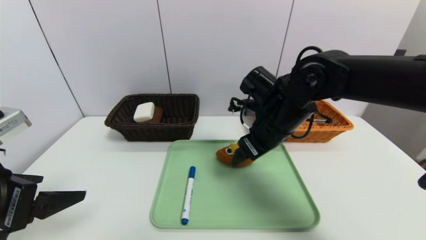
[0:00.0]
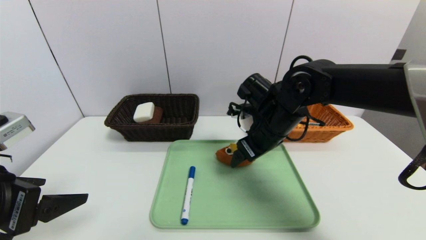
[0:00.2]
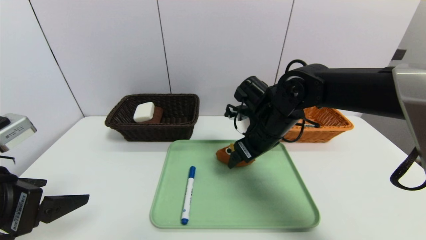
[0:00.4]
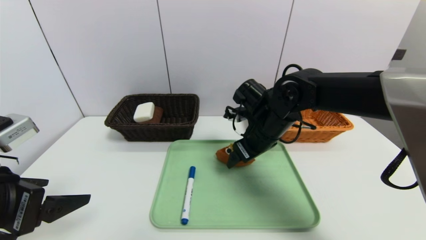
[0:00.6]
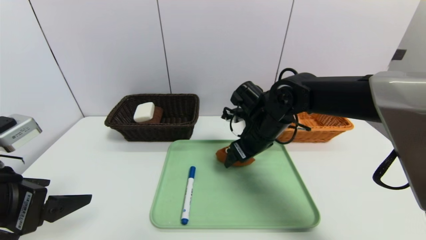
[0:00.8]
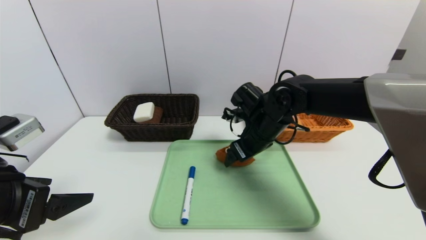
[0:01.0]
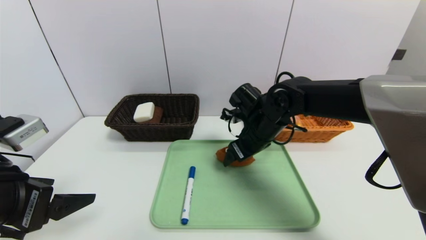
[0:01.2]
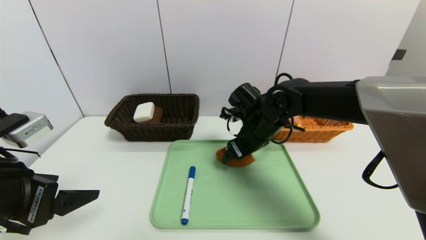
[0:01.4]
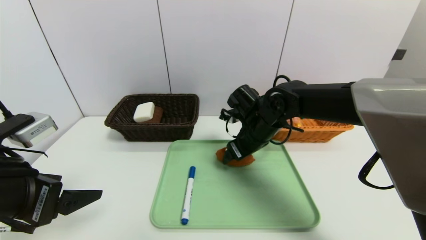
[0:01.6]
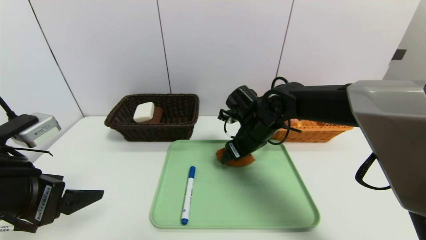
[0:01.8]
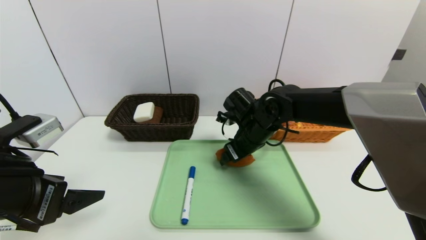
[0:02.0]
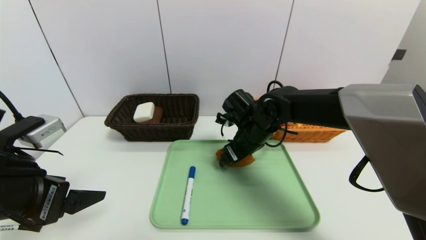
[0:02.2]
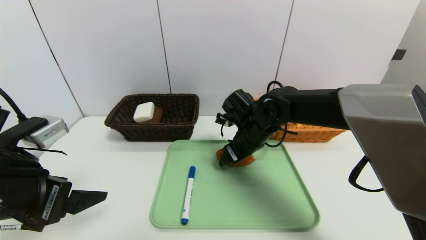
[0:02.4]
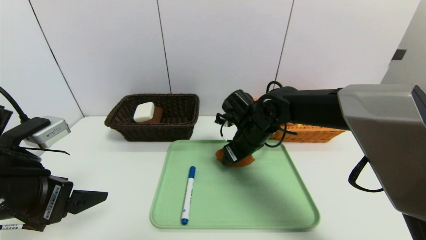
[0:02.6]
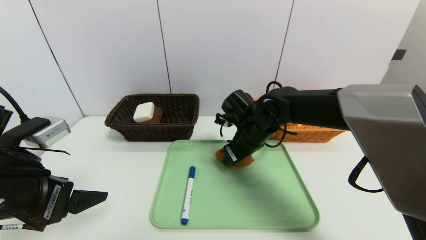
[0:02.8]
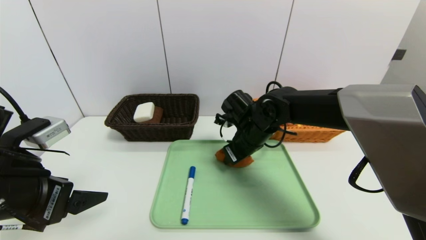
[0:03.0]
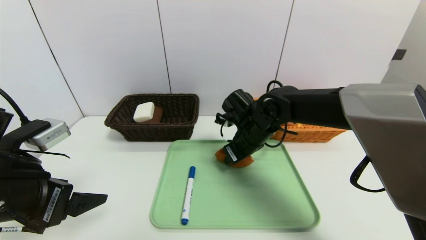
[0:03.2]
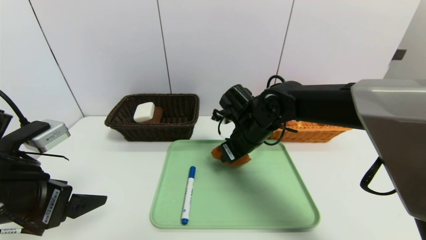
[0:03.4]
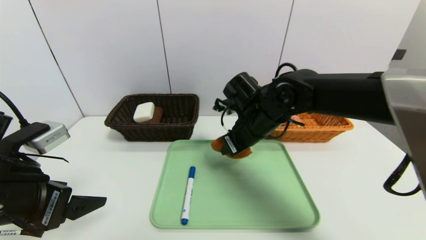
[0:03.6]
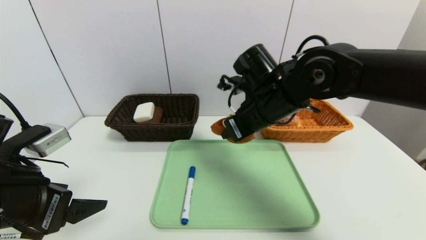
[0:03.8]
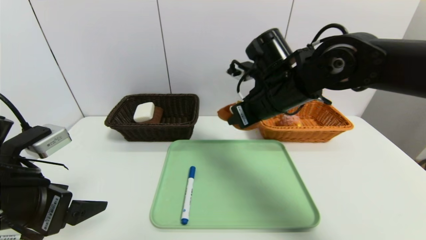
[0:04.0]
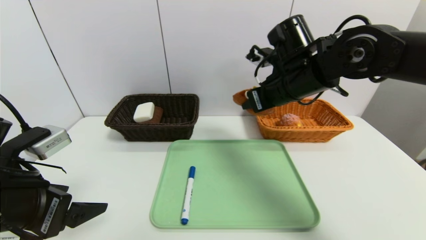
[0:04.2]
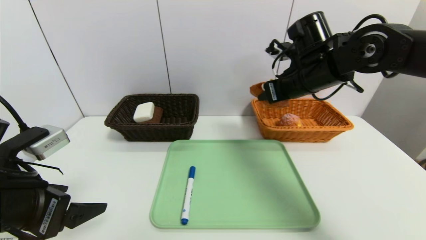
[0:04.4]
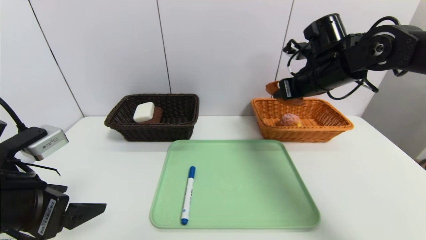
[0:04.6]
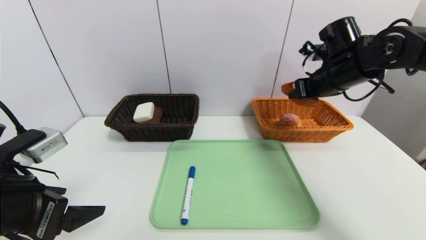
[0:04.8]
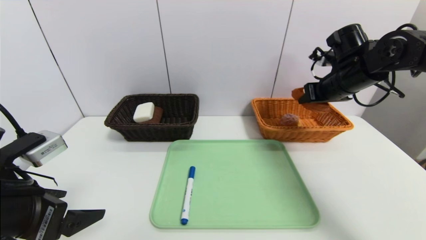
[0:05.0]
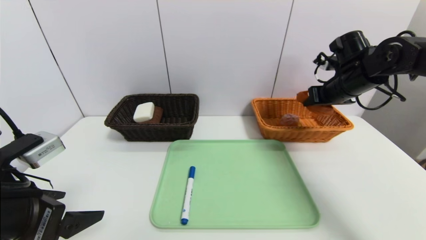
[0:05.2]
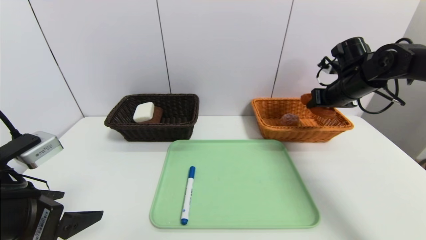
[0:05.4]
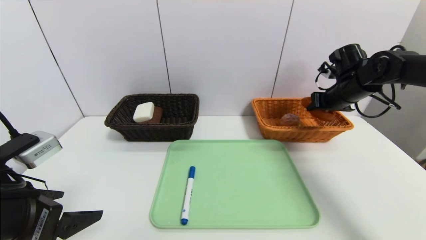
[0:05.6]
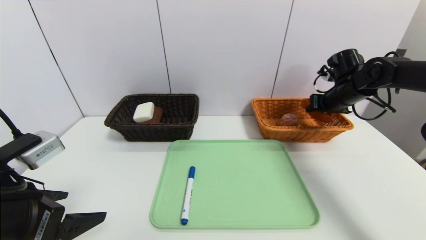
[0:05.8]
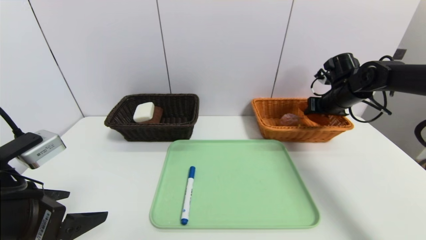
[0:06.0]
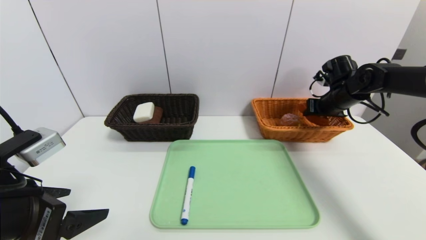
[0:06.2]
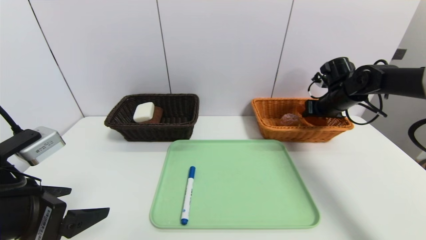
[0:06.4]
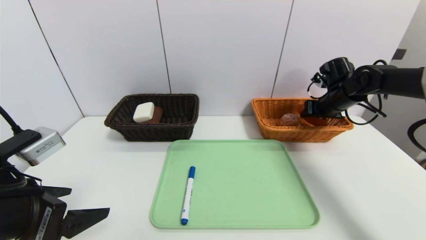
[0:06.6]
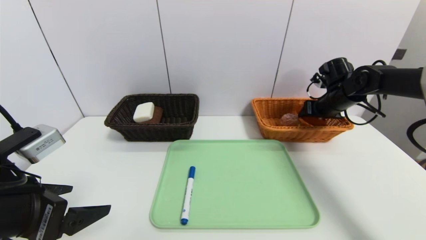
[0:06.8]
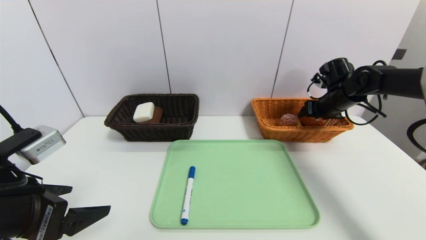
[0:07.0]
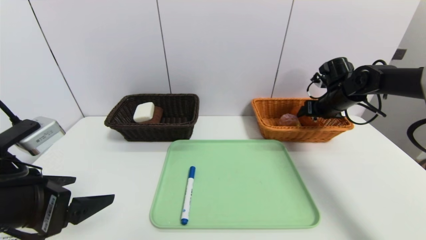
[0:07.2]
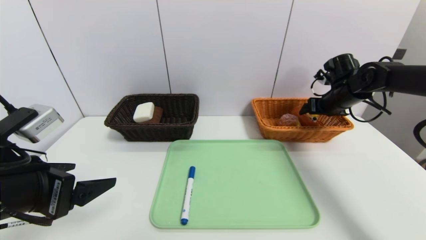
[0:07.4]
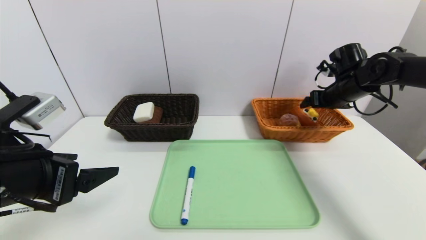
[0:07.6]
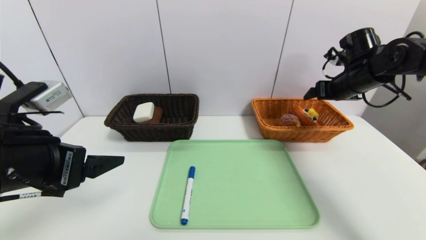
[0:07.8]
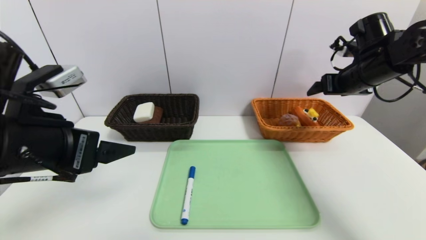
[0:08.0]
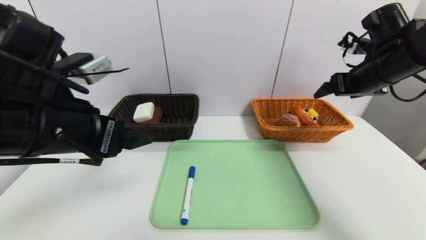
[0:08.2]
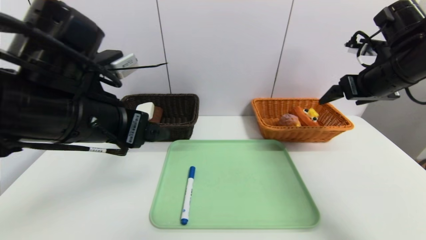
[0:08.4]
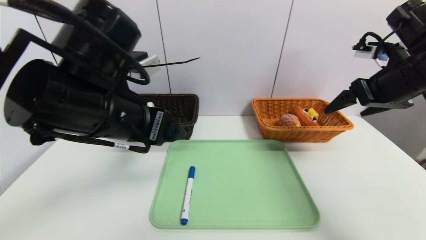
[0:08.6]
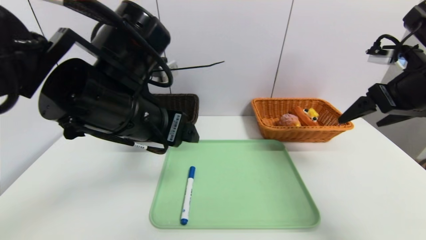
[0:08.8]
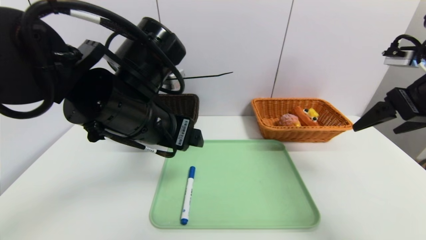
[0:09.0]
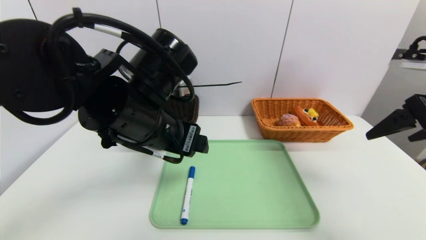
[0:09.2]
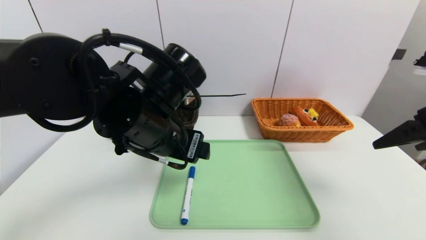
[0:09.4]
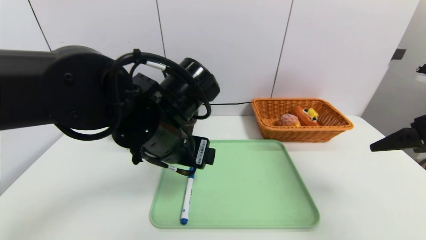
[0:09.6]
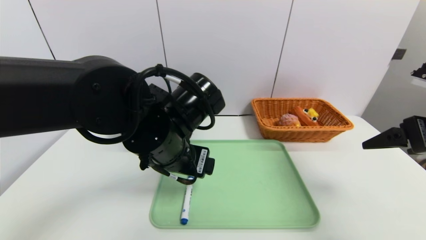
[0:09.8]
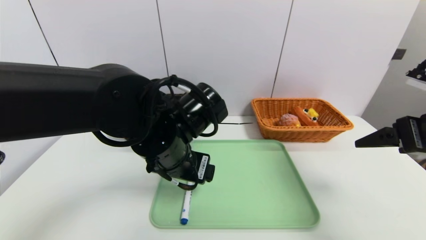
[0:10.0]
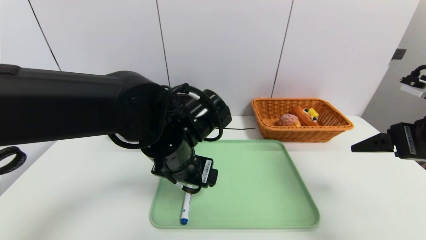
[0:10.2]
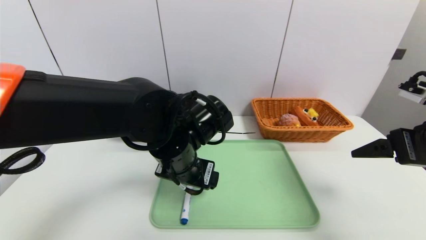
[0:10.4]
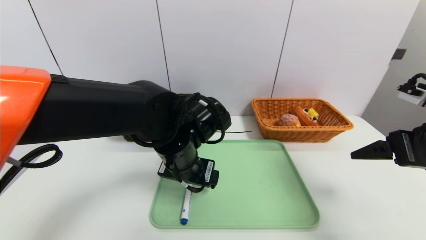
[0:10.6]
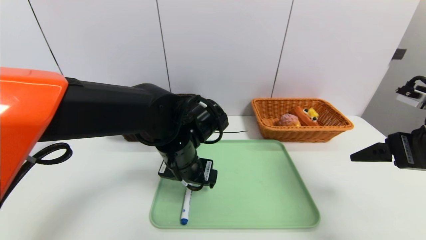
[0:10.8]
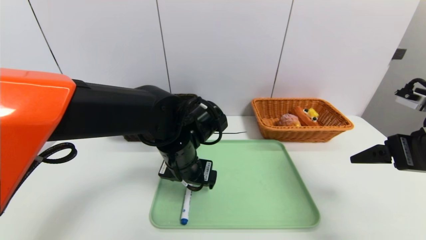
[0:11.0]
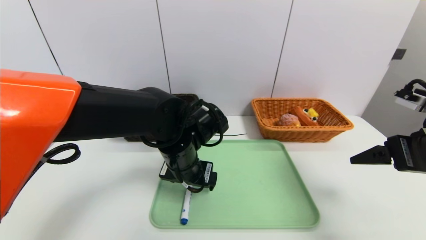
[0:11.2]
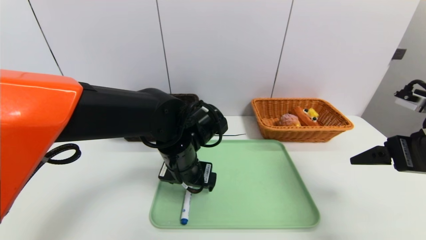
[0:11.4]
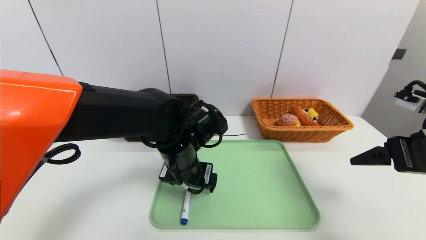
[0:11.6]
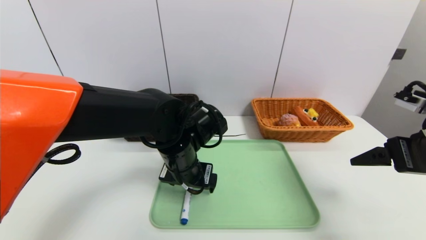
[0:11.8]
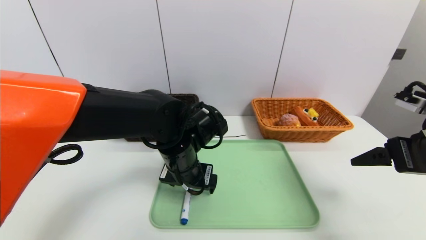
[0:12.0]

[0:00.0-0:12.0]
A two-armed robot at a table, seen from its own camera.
Task of the whole recording: place the food in the right basket with the right gripper, and place the non food items in the left basket with the left gripper.
Step, 0:00.0 to 0:07.8: Grasp the waffle and put it in the right basket.
0:00.0 to 0:01.6: The right gripper shifts approximately 5 cm downward.
0:01.6 to 0:03.0: The right gripper closes.
0:03.0 to 0:04.4: The right gripper is displaced upward and to the right by about 15 cm.
0:04.4 to 0:06.0: The right gripper shifts approximately 20 cm to the right, downward and forward.
0:06.0 to 0:07.6: The right gripper opens.
0:07.6 to 0:09.0: The right gripper moves backward and upward, roughly 20 cm. The left gripper moves to the right and forward, about 15 cm.
0:09.0 to 0:10.4: Both grippers travel together downward, about 5 cm.
0:10.4 to 0:12.0: The grippers move only a little.

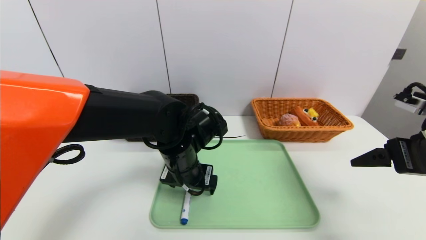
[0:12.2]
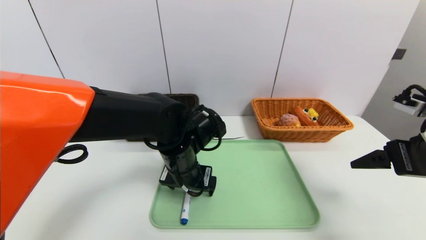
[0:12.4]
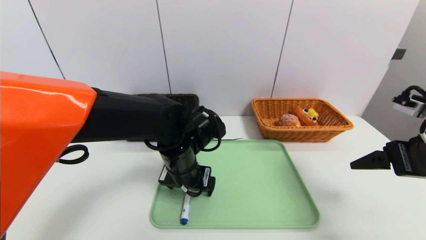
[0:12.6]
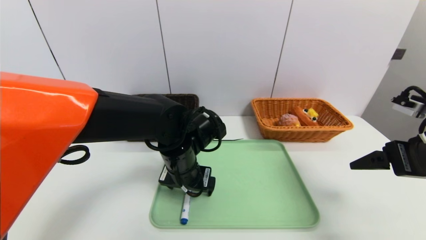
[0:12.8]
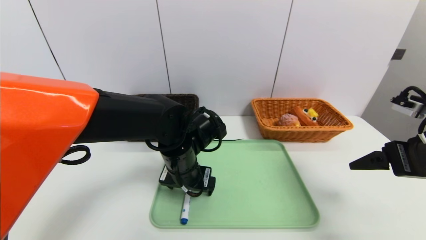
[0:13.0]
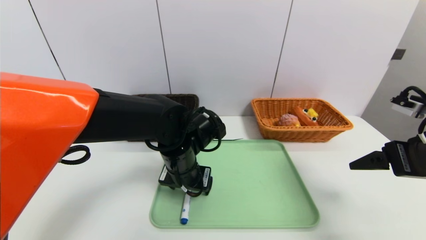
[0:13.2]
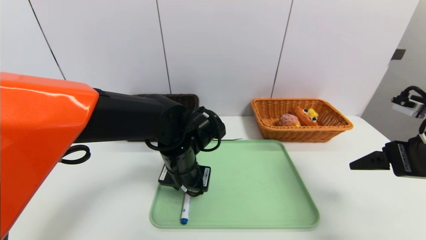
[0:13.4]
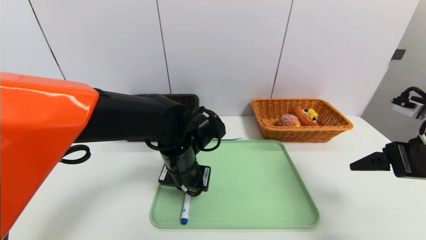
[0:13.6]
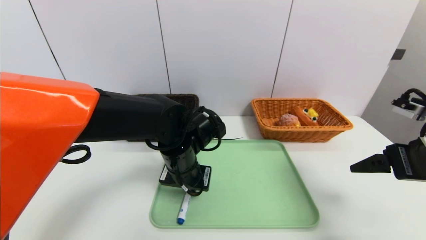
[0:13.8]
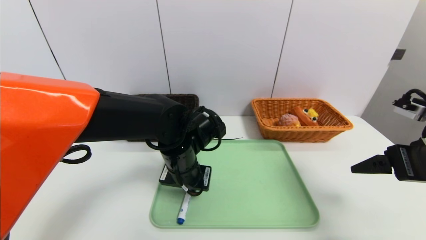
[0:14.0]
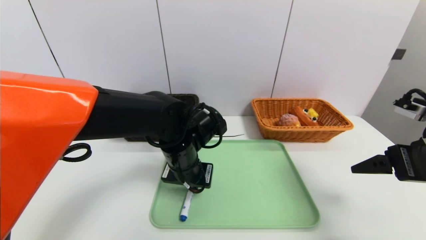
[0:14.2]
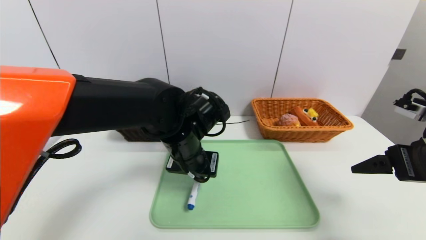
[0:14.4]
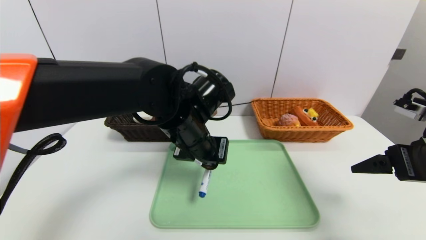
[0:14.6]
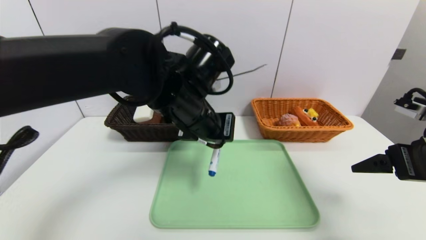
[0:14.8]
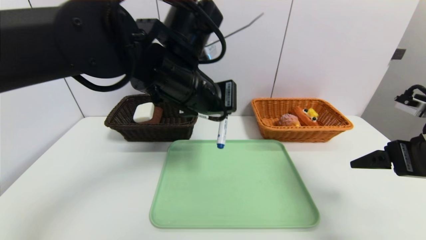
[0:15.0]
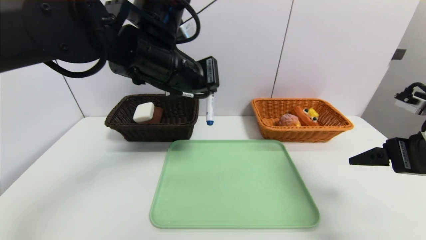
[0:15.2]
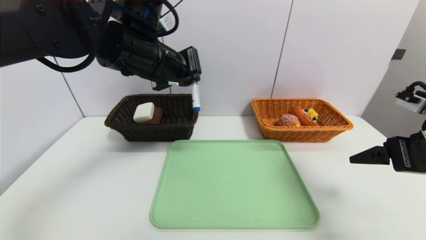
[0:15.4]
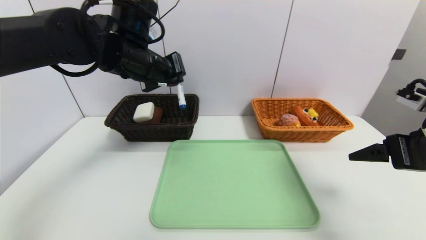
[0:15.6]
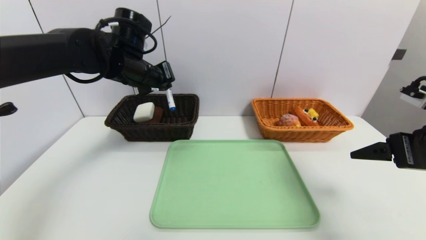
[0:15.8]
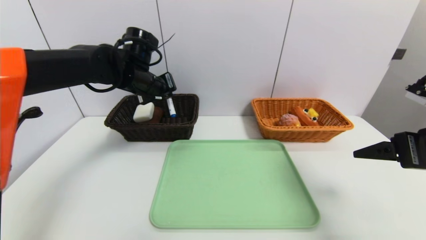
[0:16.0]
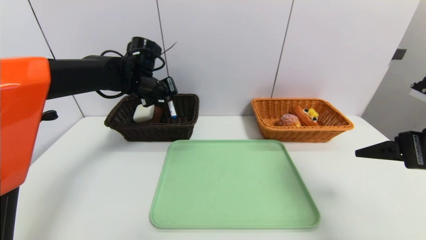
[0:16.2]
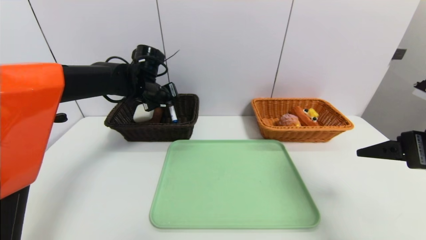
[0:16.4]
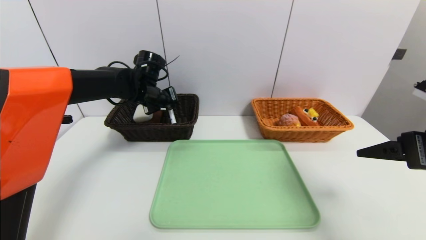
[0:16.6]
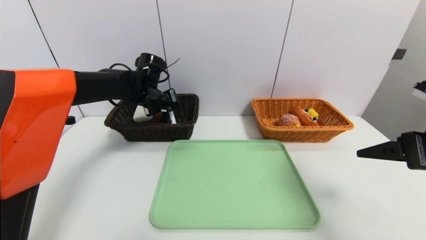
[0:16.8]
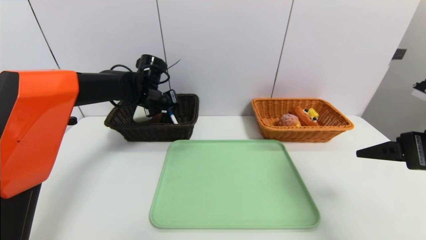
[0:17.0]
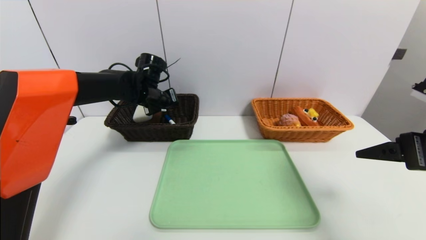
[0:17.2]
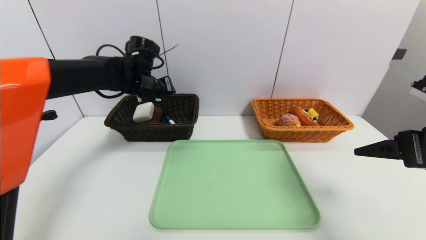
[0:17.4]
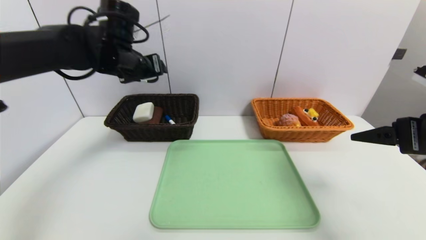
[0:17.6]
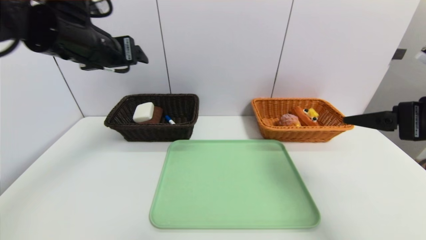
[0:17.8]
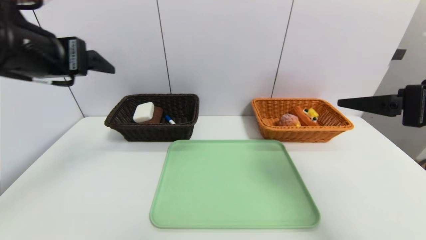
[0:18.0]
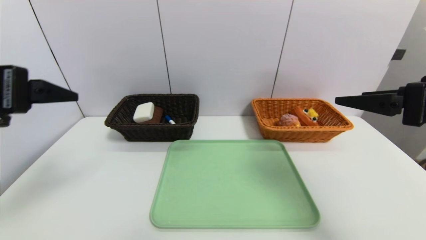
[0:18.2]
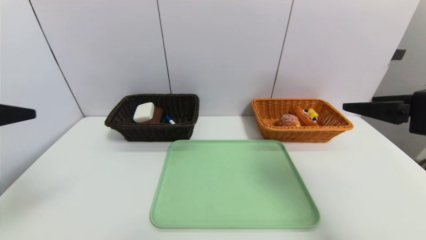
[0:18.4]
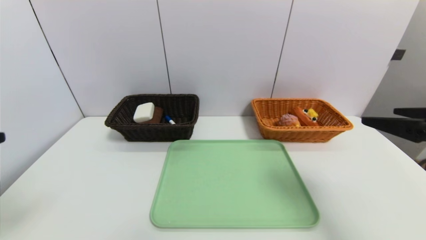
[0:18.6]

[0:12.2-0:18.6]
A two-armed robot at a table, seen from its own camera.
Task of the whole recording: place the food in the right basket with the right gripper, and place the non food items in the left basket with the left gripper.
Step, 0:12.2 to 0:17.2: Grasp the blue marker and put it in the left basket.
0:12.2 to 0:13.8: The left gripper closes its fingers.
0:13.8 to 0:15.4: The left gripper goes approximately 20 cm upward.
0:15.4 to 0:17.0: The left gripper heads forward and downward, covering approximately 20 cm.
0:17.0 to 0:18.6: The left gripper heads backward, covering about 40 cm, and opens its fingers.
